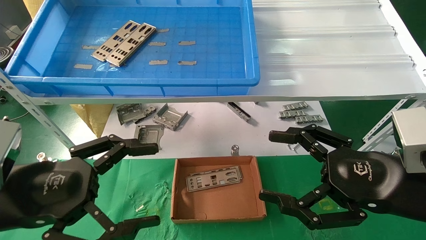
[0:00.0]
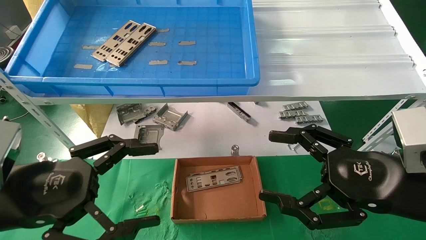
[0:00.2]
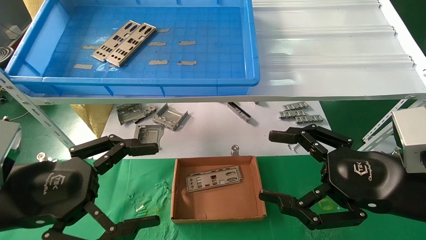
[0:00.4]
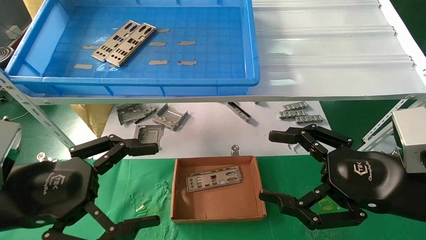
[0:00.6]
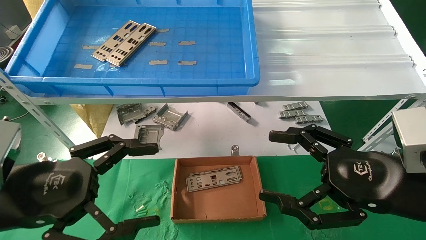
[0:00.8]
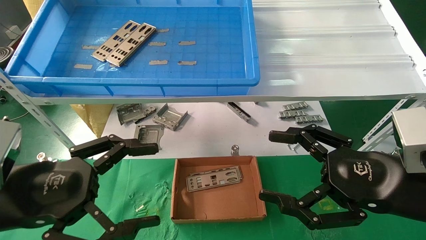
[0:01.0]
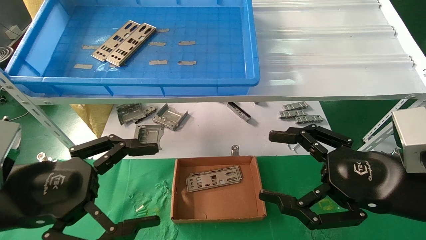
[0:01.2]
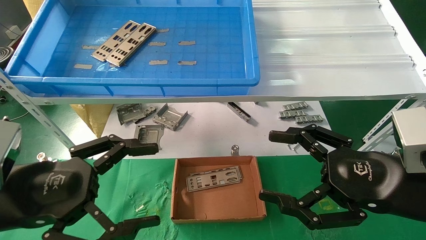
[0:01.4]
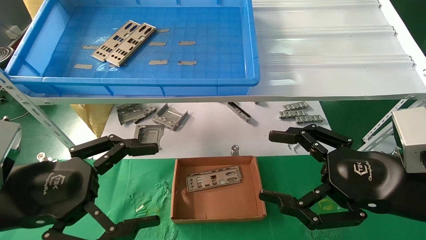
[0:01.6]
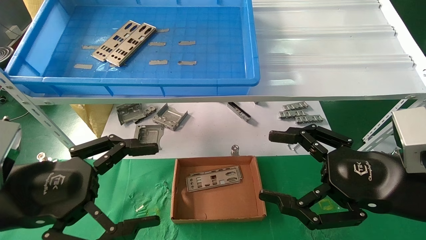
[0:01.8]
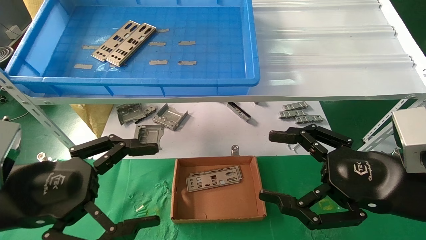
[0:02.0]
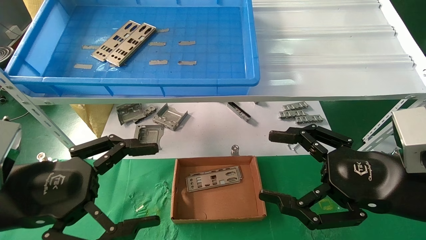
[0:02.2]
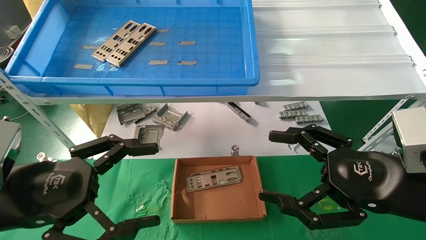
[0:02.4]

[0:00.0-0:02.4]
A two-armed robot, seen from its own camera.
Task of the whole recording: pick up the parts on the tray and put them in the cardboard box.
0:00.0 to 0:02.4: Neither gripper changes place.

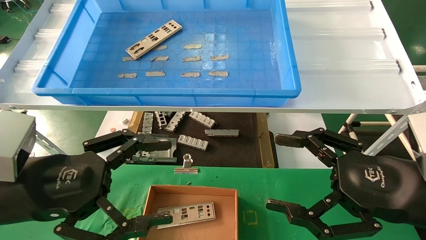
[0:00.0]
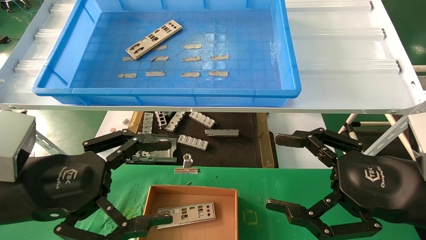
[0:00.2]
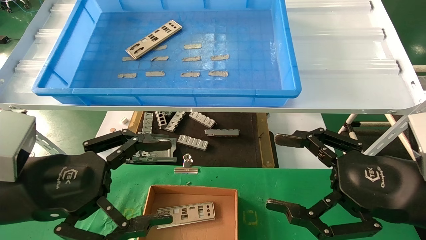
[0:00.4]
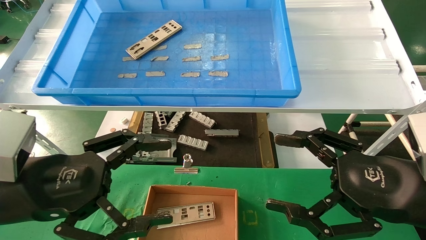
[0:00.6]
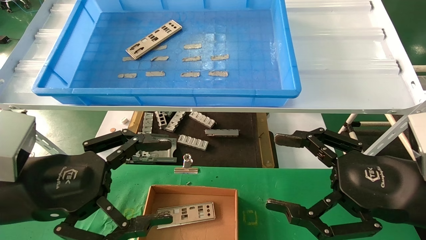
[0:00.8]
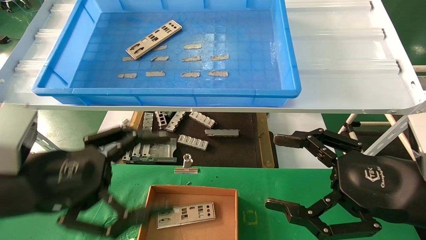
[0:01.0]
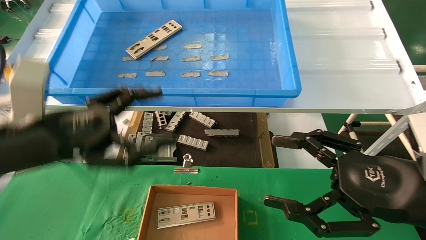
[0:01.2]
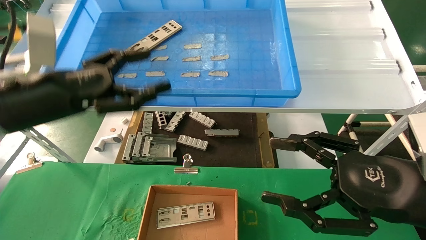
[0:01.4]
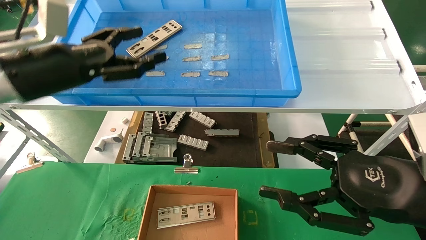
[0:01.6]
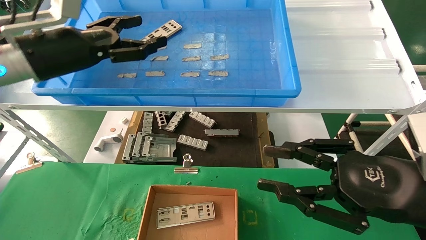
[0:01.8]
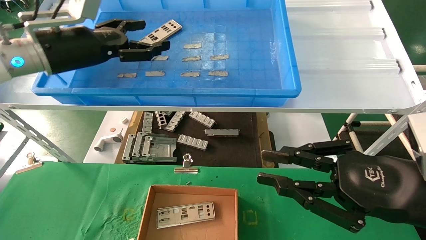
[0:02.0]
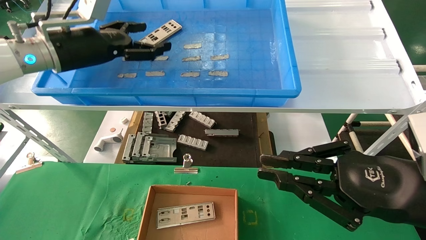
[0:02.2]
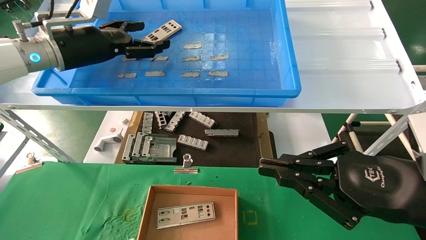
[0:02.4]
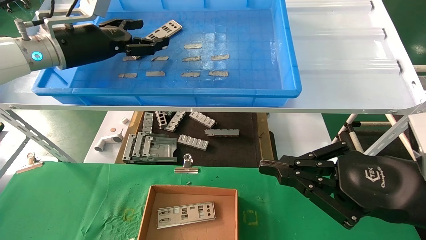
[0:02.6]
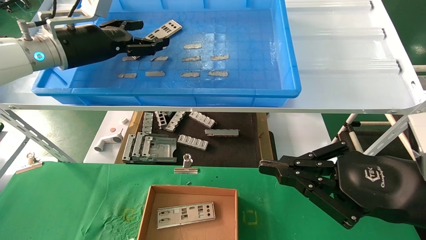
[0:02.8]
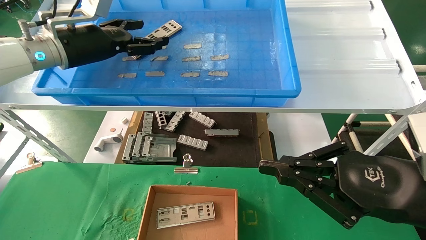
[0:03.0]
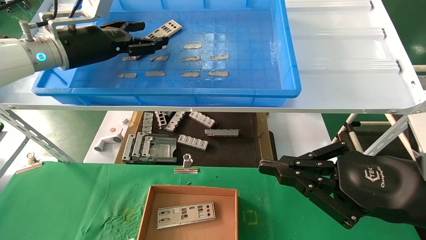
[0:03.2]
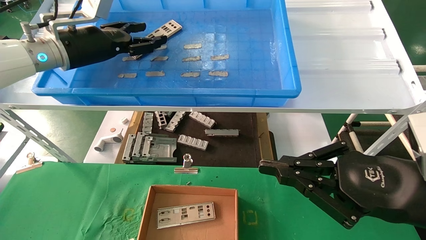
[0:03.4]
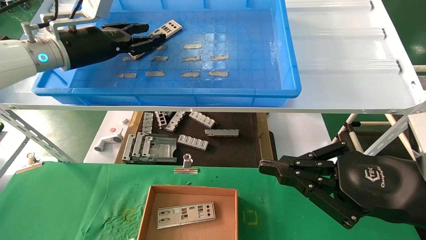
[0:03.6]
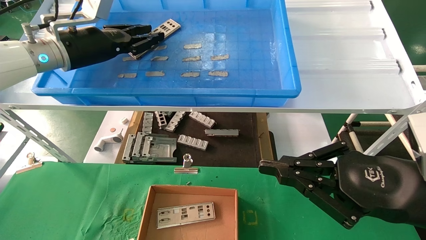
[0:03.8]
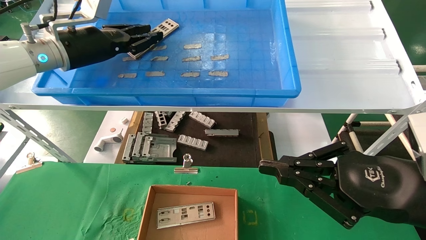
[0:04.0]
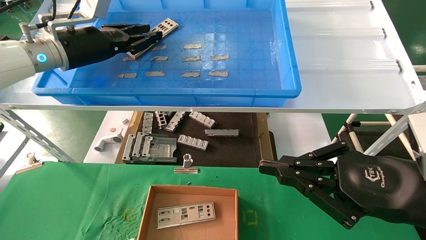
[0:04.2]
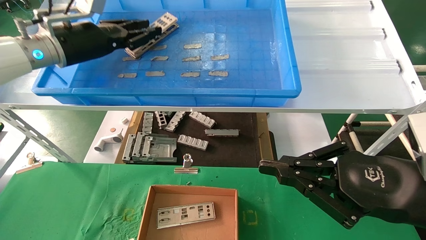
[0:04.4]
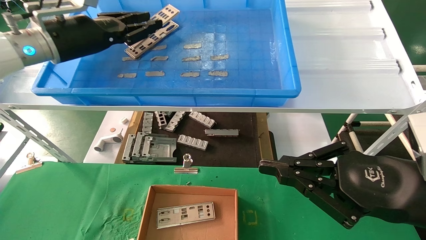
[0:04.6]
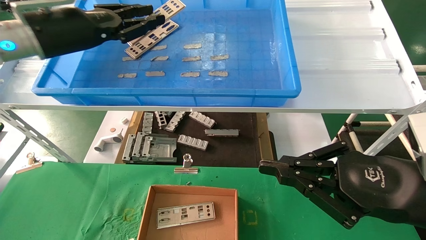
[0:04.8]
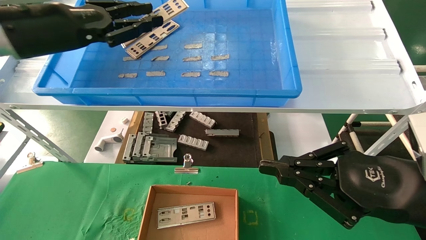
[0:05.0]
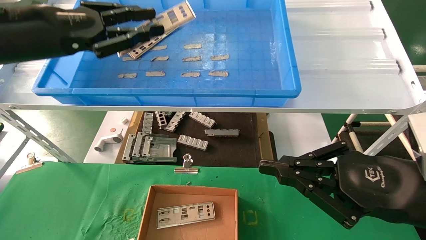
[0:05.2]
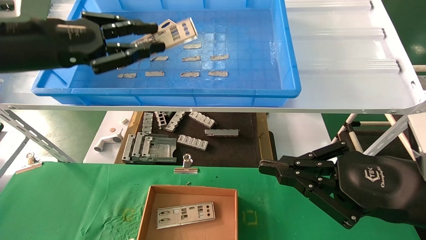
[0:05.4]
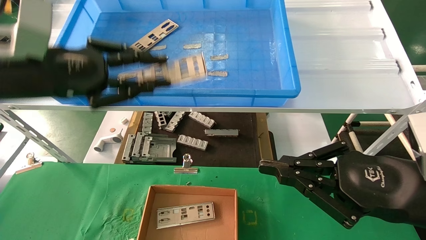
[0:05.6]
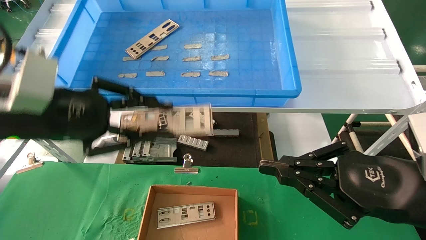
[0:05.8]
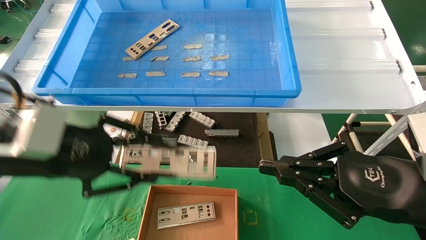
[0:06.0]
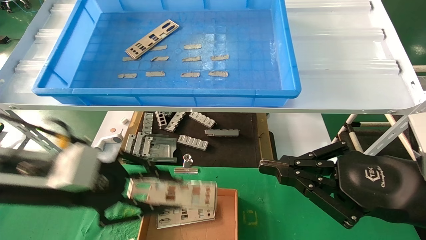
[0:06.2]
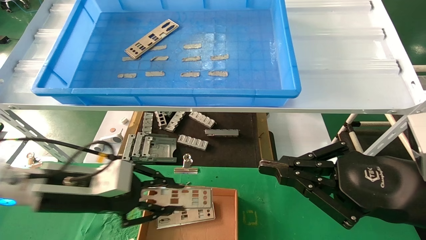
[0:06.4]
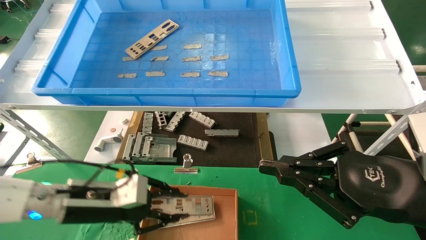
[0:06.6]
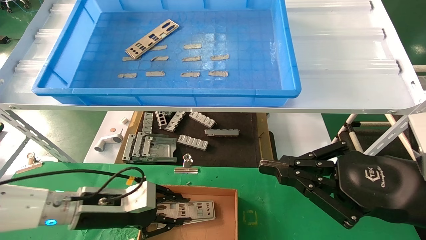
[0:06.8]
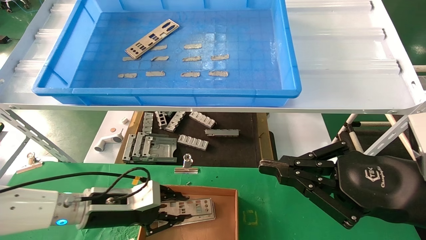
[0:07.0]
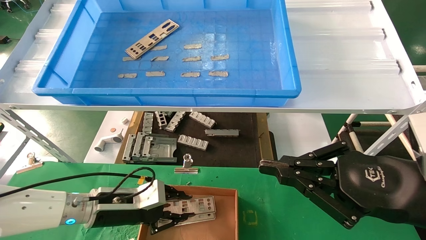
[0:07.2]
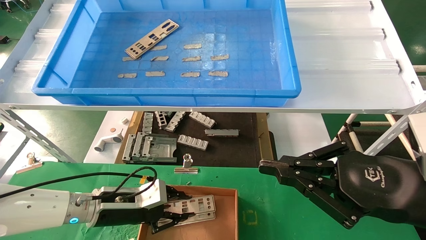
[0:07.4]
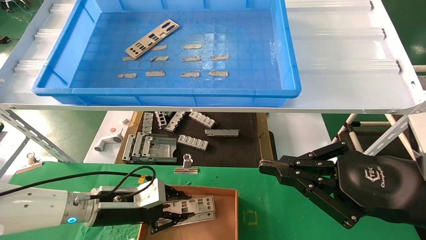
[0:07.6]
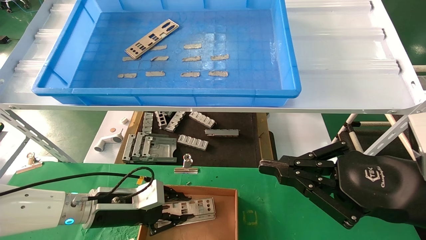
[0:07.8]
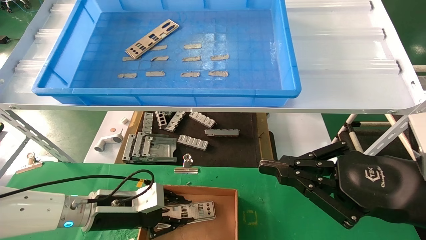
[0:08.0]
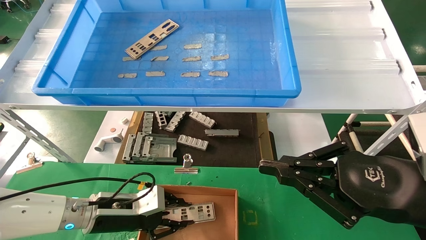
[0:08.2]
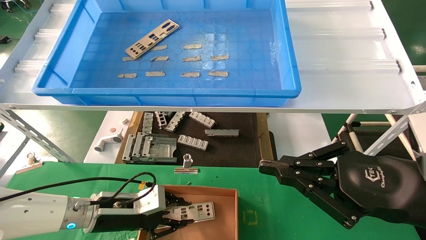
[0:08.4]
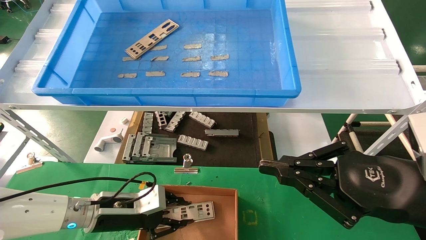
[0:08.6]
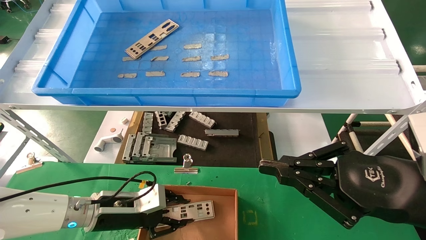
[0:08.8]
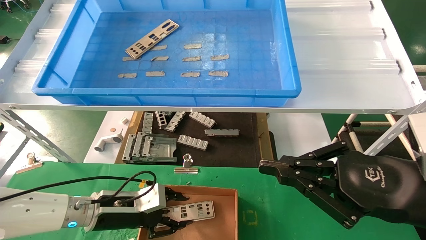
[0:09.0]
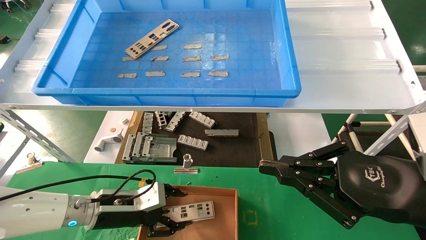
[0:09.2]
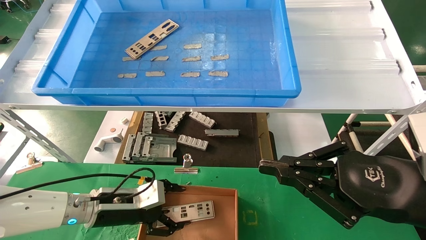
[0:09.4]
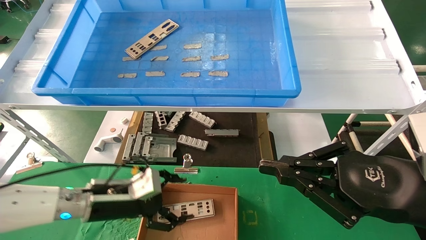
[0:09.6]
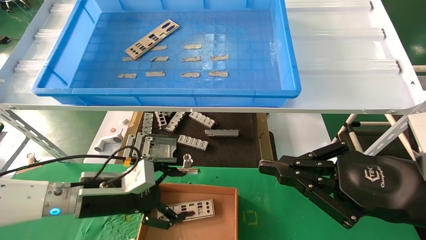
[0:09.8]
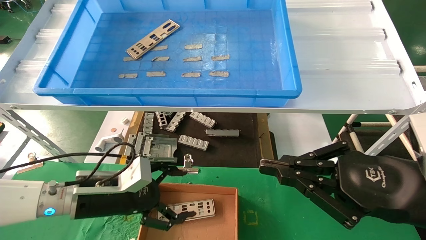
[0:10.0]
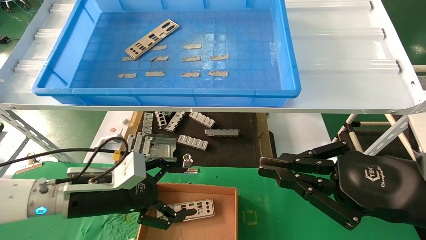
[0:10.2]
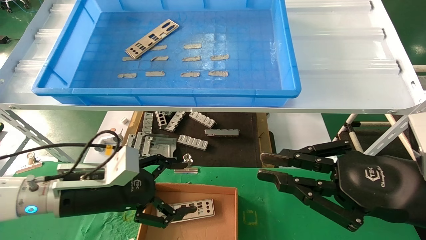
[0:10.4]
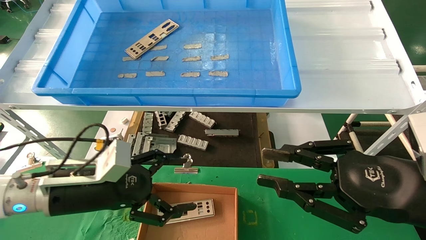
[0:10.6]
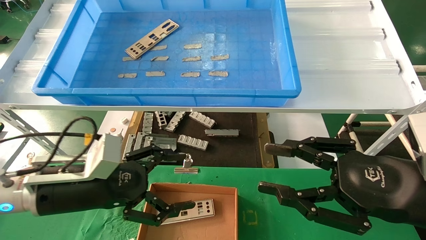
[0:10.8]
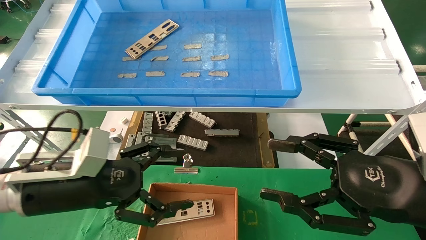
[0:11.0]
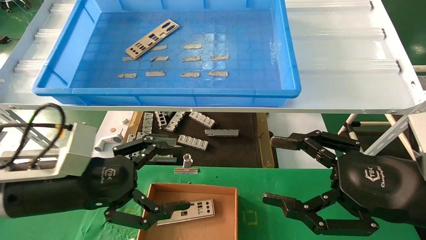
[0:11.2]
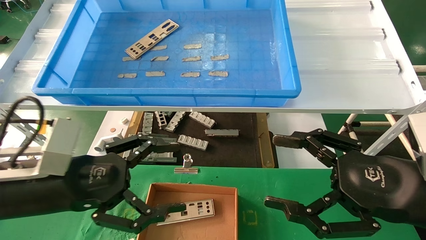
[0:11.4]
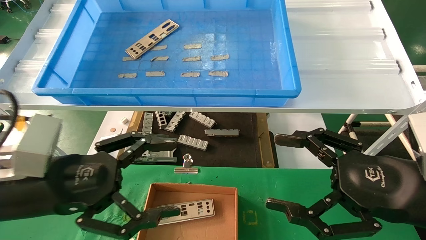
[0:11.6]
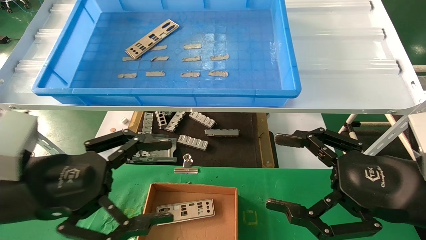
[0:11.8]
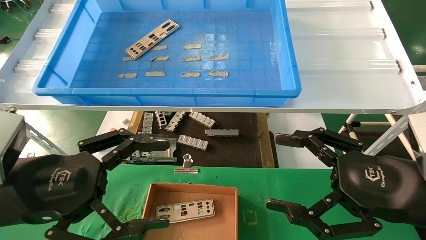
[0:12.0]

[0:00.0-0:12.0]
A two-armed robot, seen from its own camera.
Task of the whole recording: pick up the parts on the tray and put them in the cardboard box.
Step, 0:01.2 to 0:04.4: Pick up the IO bracket from the container box.
Step, 0:04.6 to 0:09.0: Place the IO bracket into the ingredient slot.
0:00.0 to 0:01.6: The left gripper goes about 15 cm forward and upward.
0:01.6 to 0:03.0: The left gripper is displaced forward by roughly 10 cm. Meanwhile the right gripper closes its fingers.
0:03.0 to 0:04.4: The left gripper closes up.
0:04.4 to 0:06.0: The left gripper moves backward and downward, roughly 20 cm.
0:06.0 to 0:07.6: The left gripper goes roughly 20 cm downward and forward.
0:07.6 to 0:09.0: Both grippers stay about where they are.
0:09.0 to 0:10.4: The left gripper moves upward and backward, roughly 10 cm, and opens its fingers.
0:10.4 to 0:12.0: The right gripper opens its fingers. Meanwhile the left gripper heads backward and upward, covering about 15 cm.

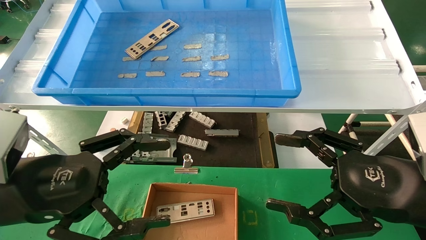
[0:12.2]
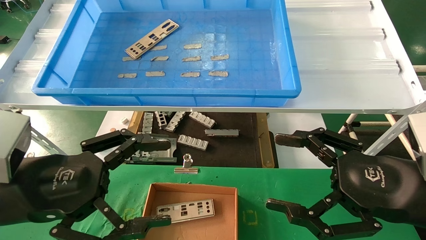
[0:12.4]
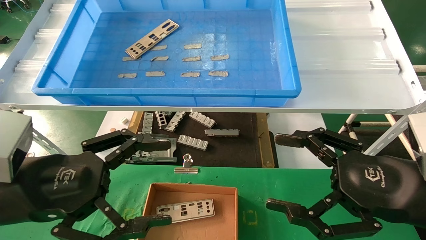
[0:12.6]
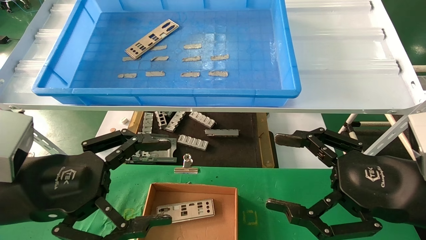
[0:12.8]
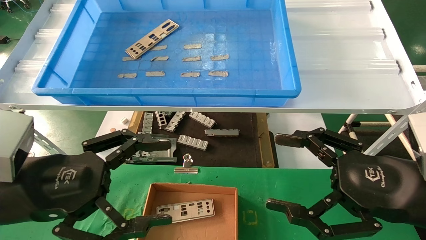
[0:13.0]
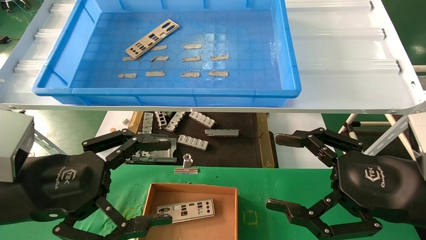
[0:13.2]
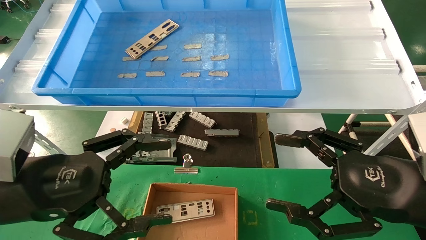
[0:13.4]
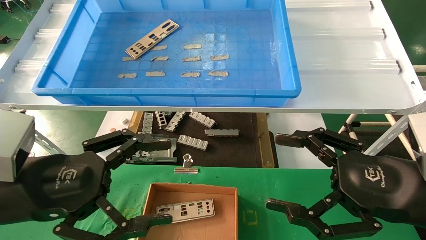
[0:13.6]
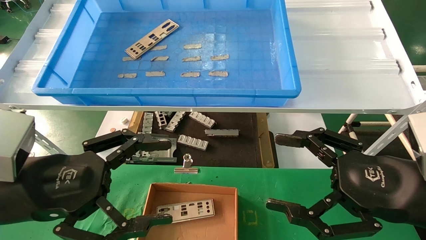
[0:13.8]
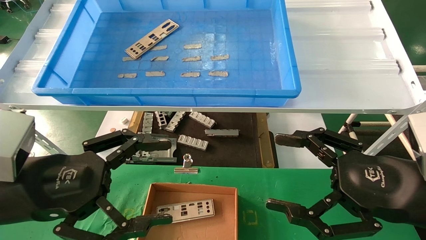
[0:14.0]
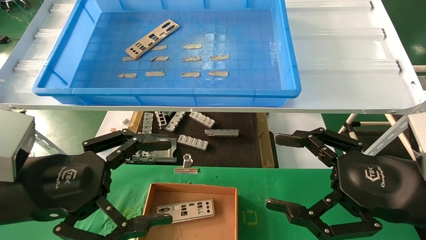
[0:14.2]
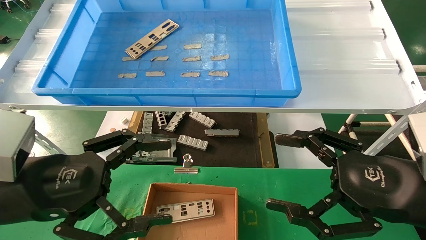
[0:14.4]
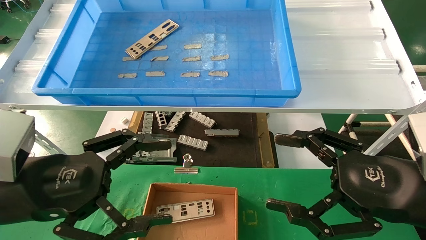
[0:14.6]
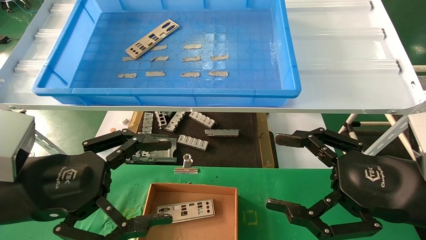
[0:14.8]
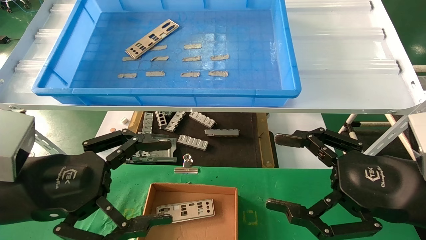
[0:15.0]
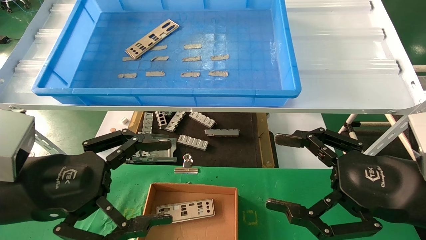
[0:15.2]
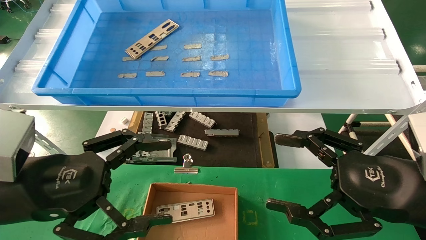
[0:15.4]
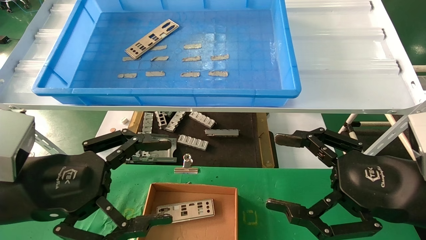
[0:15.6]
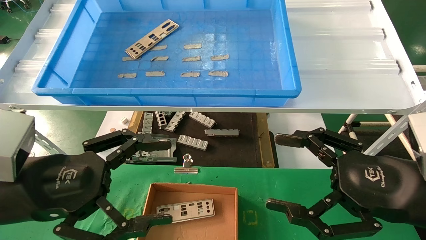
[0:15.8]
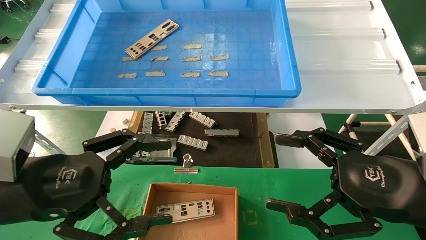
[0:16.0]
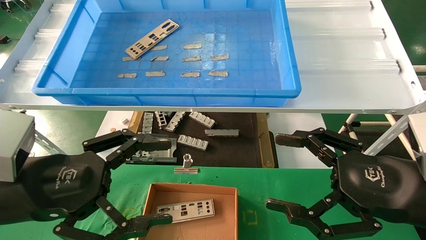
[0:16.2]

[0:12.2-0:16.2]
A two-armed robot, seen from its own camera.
Task of the whole recording: pick up the parts on the tray and put them in the cardboard box.
0:12.2 to 0:16.2: Both grippers stay about where they are.
